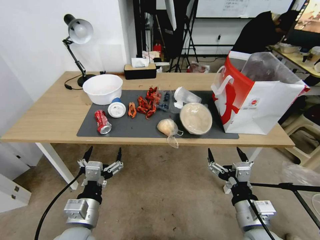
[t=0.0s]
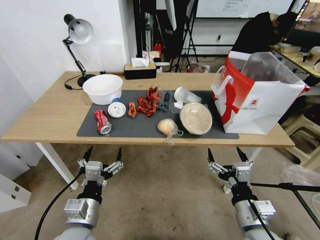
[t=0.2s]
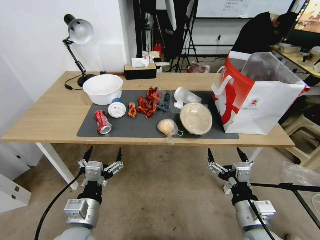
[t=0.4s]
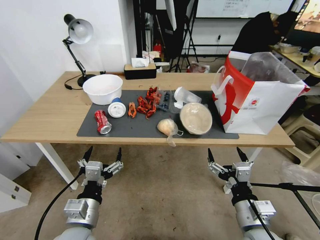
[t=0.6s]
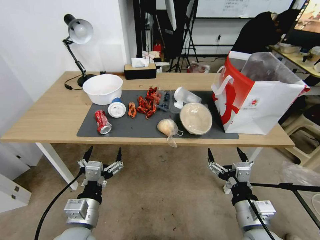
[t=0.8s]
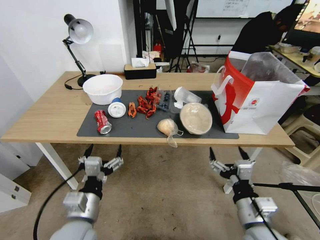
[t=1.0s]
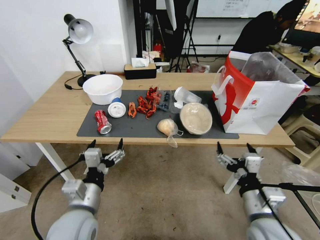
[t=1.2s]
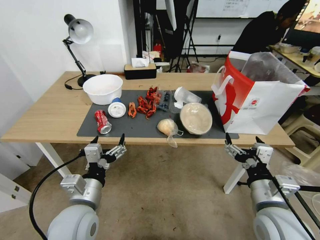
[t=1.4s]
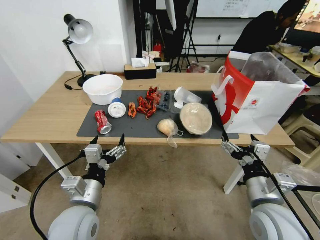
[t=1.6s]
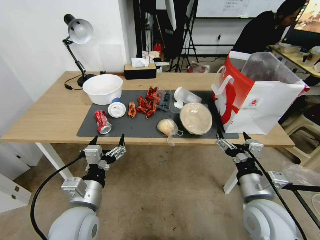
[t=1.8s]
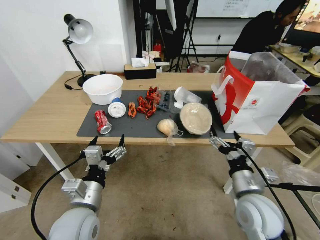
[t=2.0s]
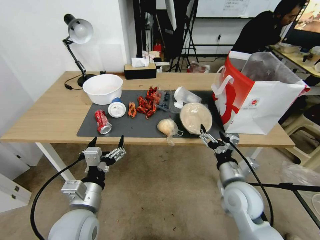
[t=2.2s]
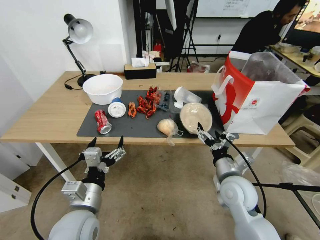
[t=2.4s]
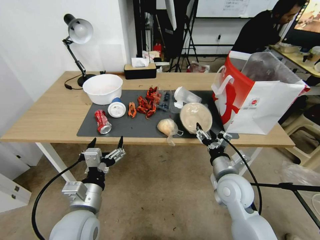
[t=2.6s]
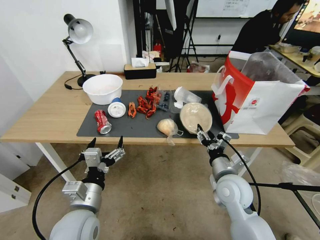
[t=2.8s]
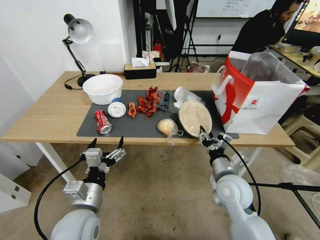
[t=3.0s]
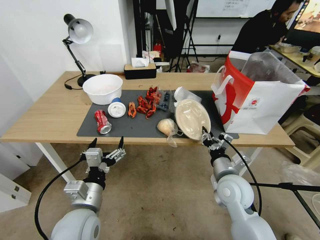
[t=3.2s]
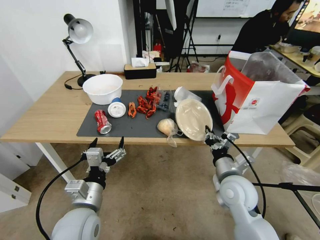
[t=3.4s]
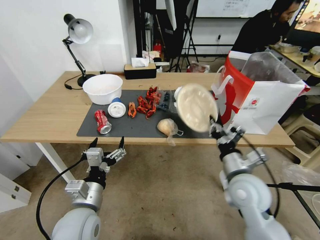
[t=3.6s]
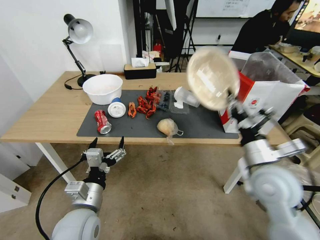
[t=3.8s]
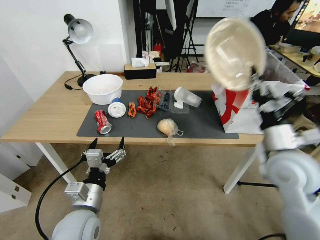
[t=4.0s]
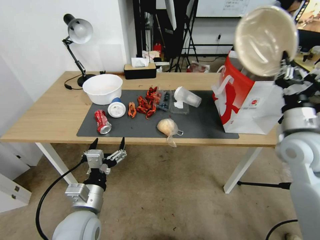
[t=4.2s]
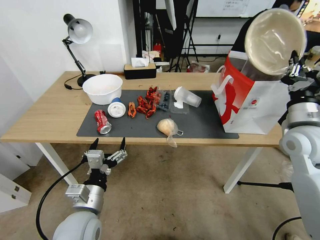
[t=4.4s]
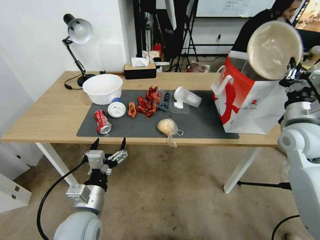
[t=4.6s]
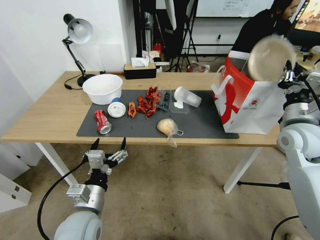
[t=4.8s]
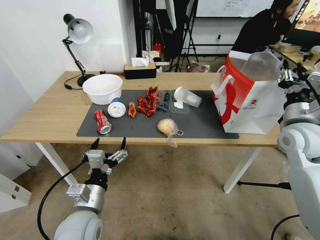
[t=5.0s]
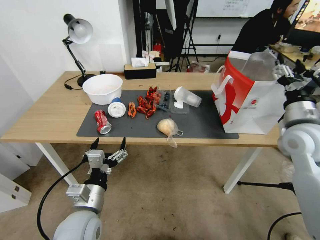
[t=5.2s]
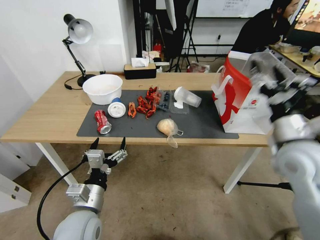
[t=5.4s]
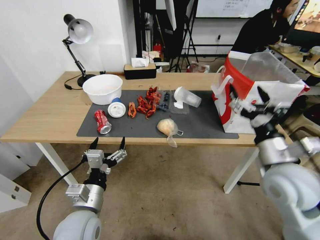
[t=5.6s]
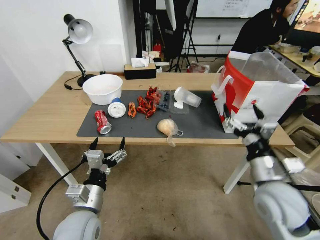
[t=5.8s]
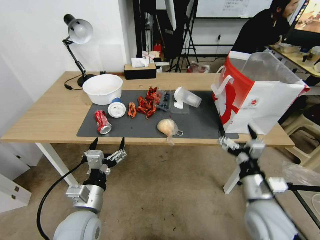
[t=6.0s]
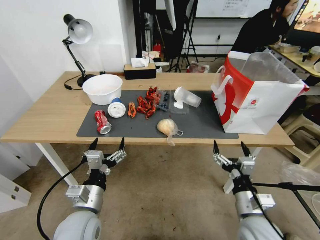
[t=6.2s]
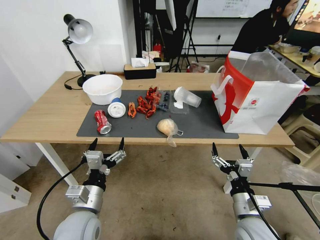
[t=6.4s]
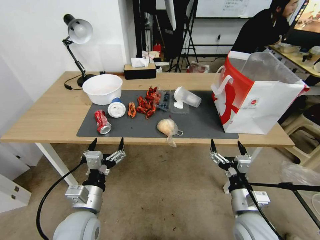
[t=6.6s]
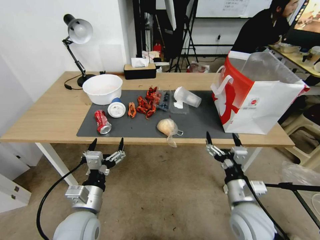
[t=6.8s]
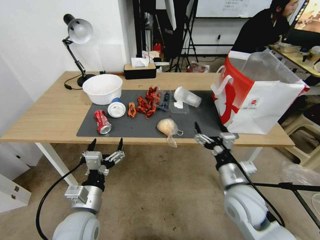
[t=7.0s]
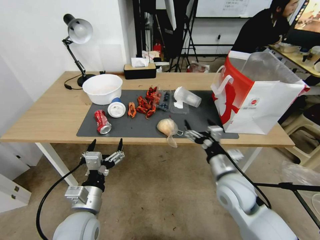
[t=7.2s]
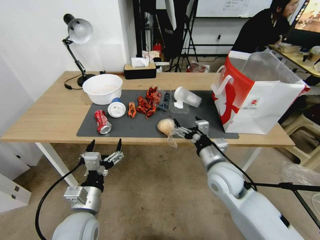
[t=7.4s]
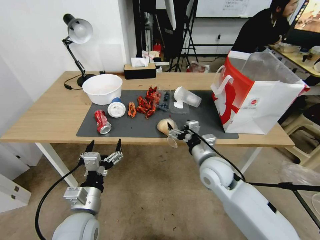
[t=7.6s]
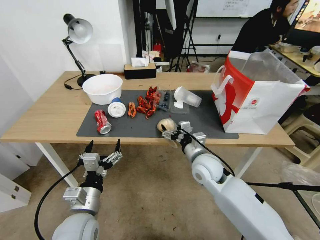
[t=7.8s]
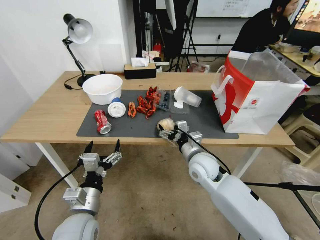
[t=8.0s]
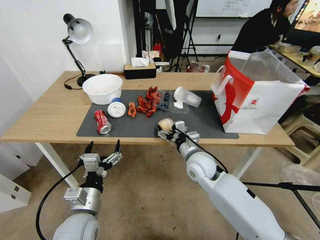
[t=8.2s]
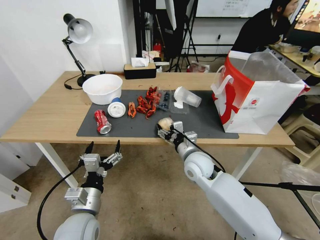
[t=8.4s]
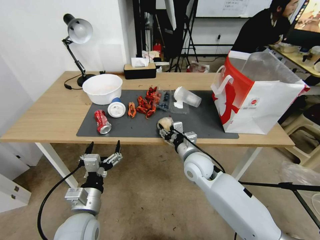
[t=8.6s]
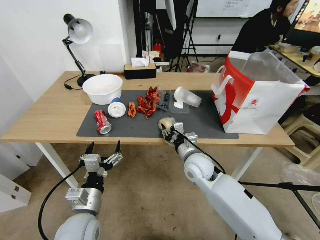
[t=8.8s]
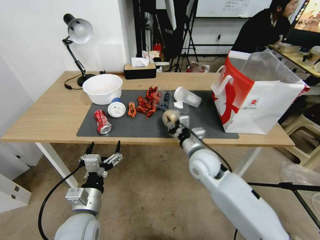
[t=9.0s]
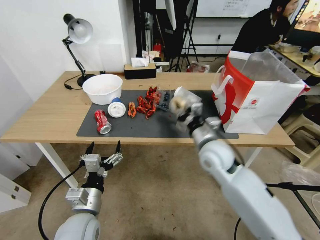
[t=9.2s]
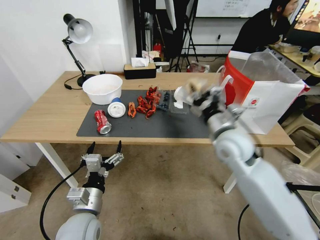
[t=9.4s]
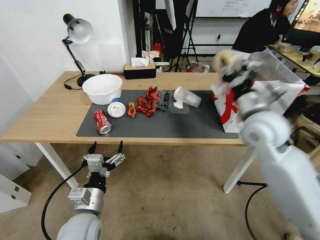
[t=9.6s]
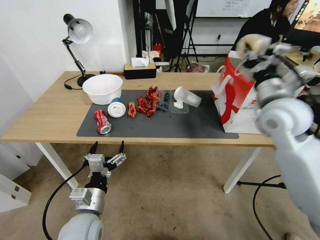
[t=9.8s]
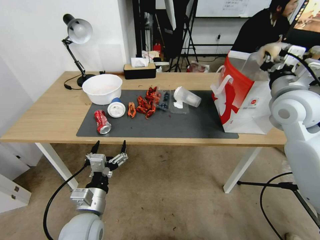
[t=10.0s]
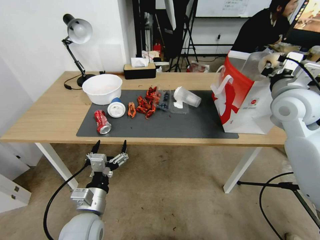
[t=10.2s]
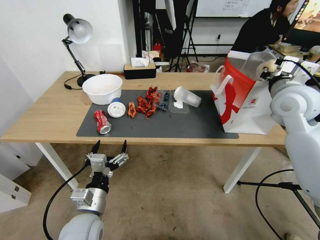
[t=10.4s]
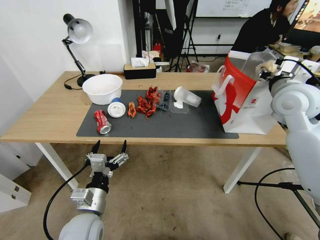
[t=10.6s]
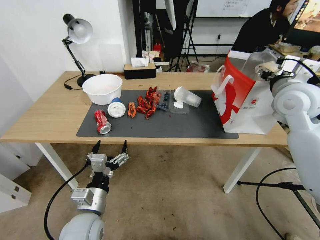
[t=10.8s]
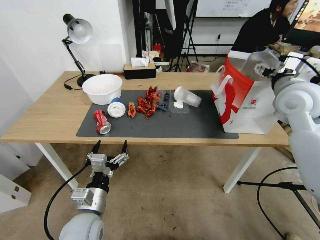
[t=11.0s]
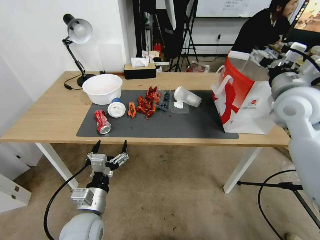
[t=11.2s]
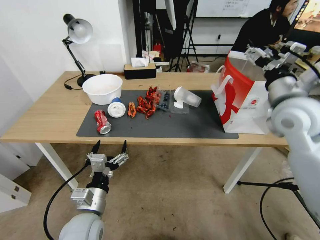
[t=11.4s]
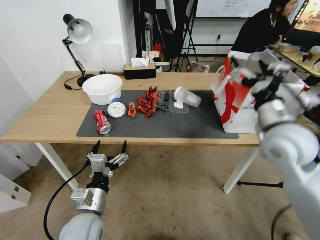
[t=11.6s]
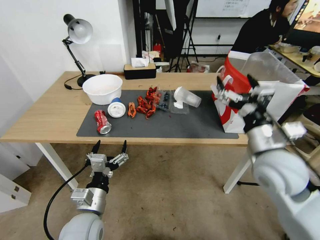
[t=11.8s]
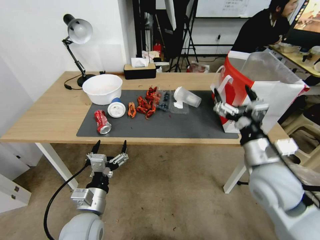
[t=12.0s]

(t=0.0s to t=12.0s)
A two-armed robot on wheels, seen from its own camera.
t=1.6s - t=3.0s: The right gripper travels forward and downward by roughly 10 cm, and closes its fingers.
t=3.0s - t=4.4s: The right gripper moves upward and to the right, some 20 cm, and closes up.
t=4.4s - t=6.0s: The right gripper shifts about 25 cm downward, backward and to the left, and opens up.
t=6.0s - t=7.6s: The right gripper is displaced forward and to the left by approximately 15 cm.
t=7.6s - t=9.0s: The right gripper closes.
t=9.0s - t=10.4s: The right gripper heads upward and to the right, covering approximately 30 cm.
t=10.4s - t=12.0s: The right gripper goes about 25 cm backward, downward and to the left, and opens.

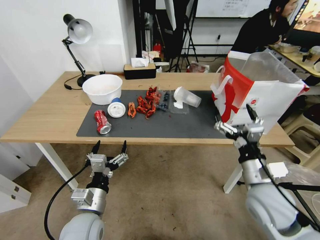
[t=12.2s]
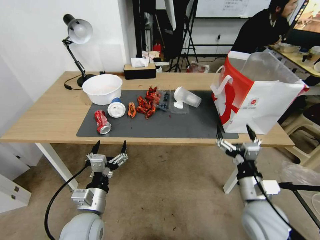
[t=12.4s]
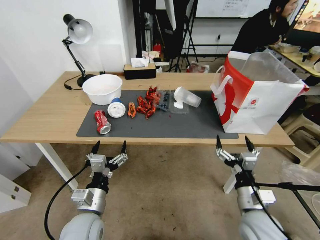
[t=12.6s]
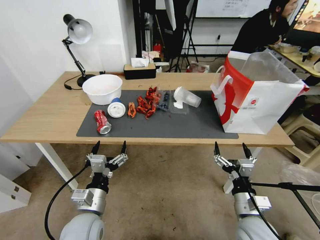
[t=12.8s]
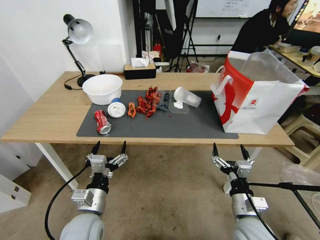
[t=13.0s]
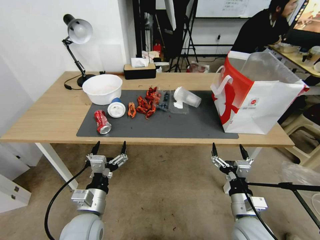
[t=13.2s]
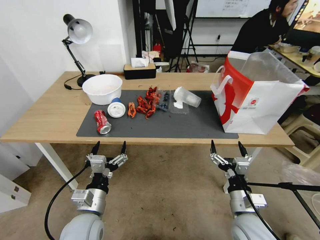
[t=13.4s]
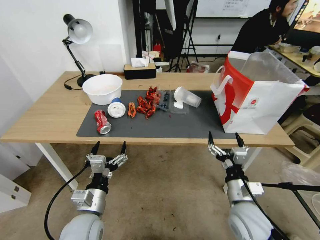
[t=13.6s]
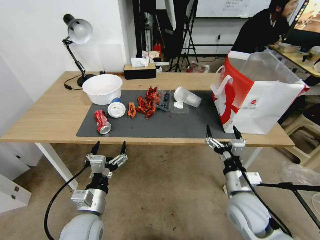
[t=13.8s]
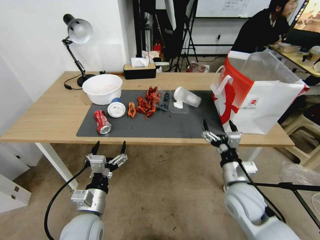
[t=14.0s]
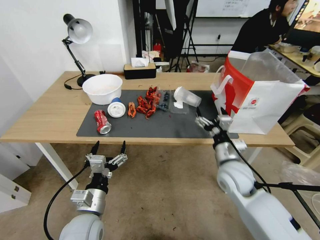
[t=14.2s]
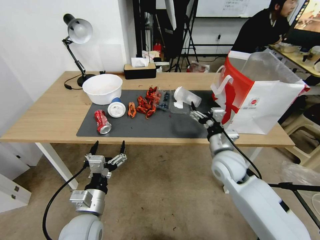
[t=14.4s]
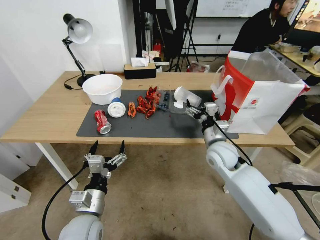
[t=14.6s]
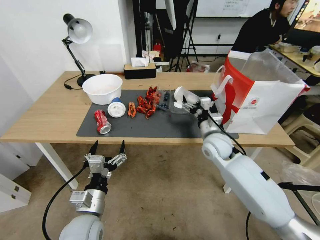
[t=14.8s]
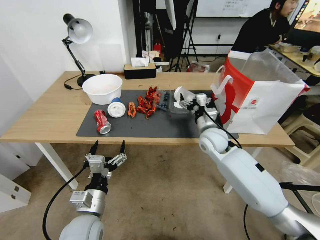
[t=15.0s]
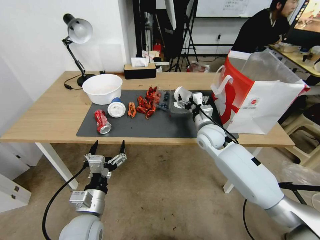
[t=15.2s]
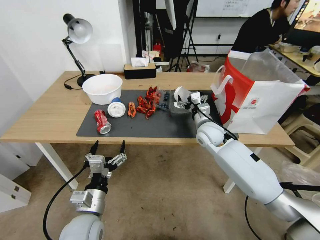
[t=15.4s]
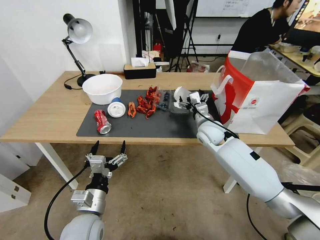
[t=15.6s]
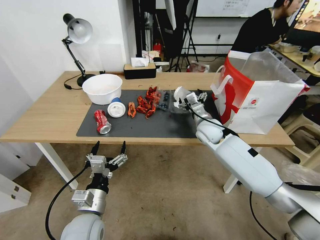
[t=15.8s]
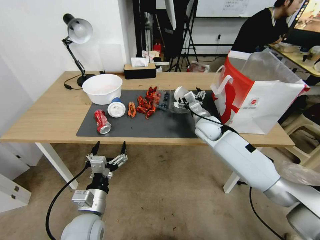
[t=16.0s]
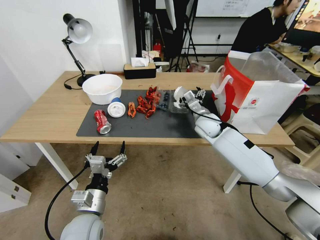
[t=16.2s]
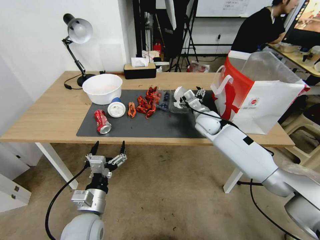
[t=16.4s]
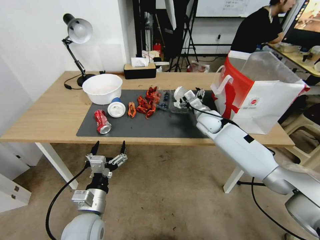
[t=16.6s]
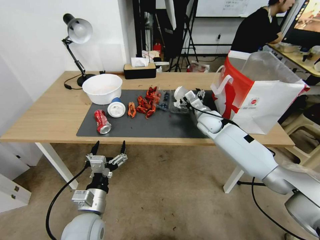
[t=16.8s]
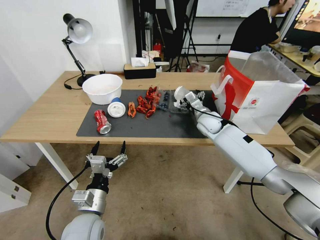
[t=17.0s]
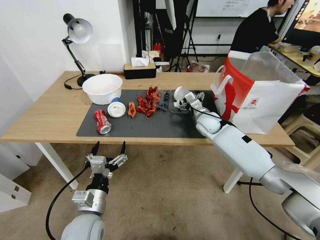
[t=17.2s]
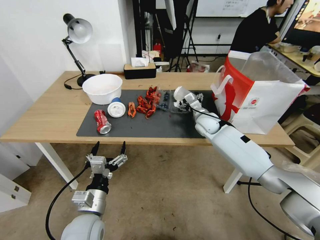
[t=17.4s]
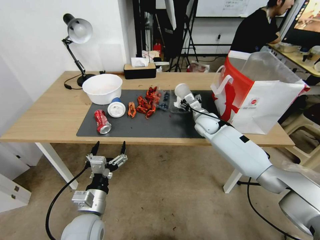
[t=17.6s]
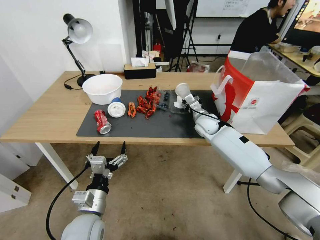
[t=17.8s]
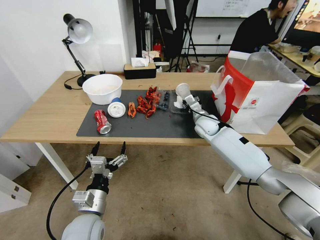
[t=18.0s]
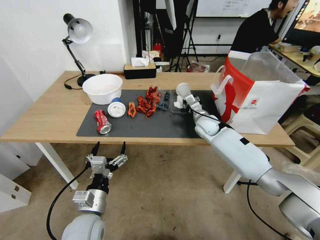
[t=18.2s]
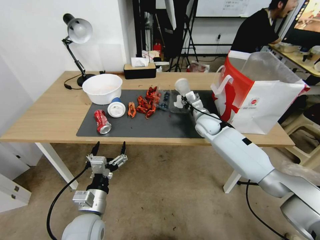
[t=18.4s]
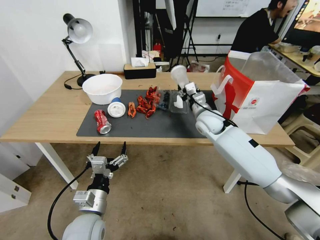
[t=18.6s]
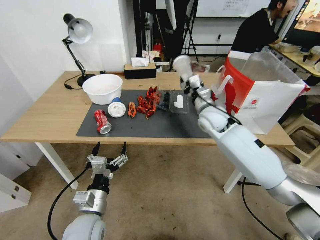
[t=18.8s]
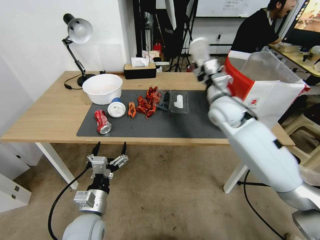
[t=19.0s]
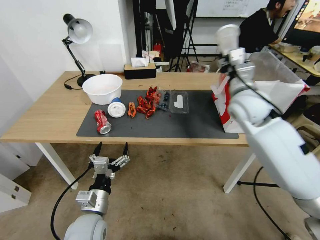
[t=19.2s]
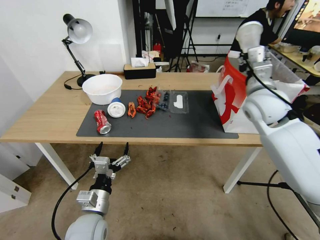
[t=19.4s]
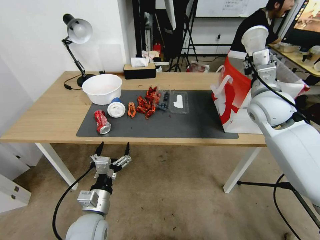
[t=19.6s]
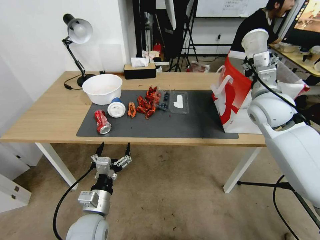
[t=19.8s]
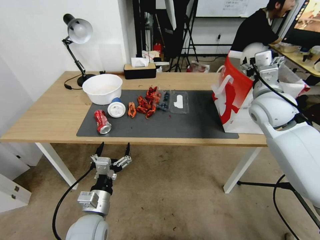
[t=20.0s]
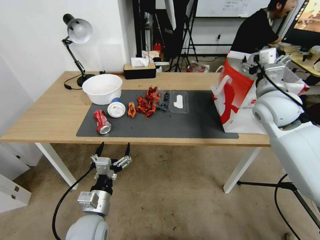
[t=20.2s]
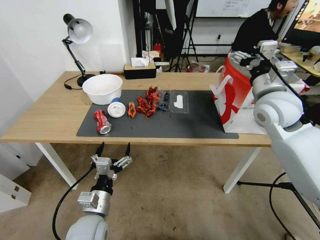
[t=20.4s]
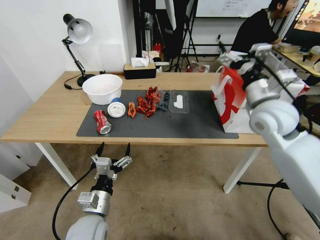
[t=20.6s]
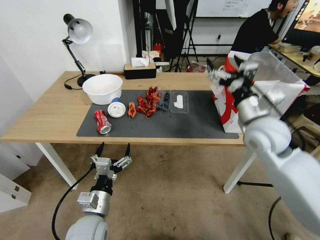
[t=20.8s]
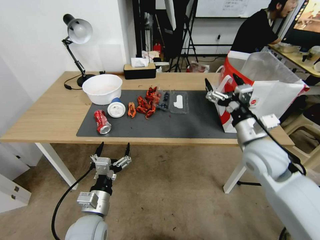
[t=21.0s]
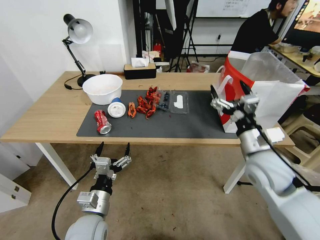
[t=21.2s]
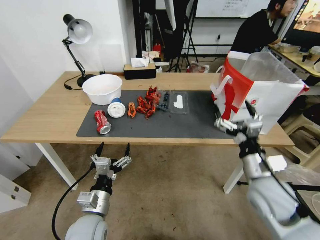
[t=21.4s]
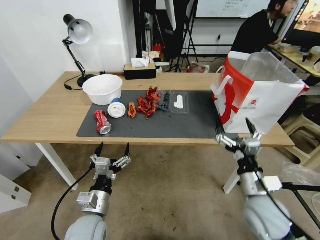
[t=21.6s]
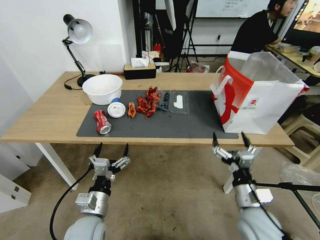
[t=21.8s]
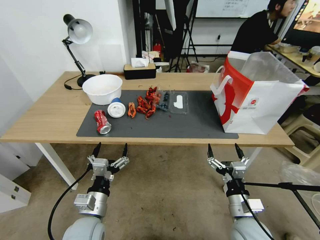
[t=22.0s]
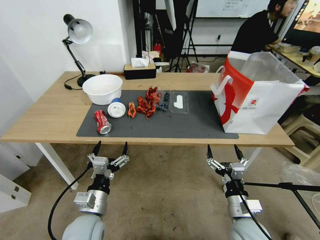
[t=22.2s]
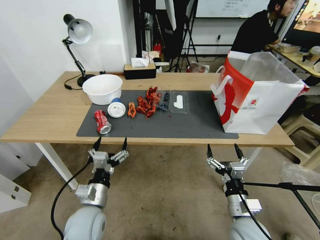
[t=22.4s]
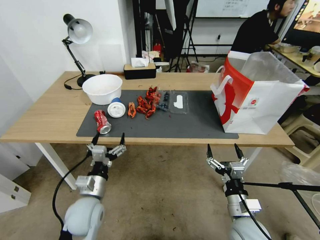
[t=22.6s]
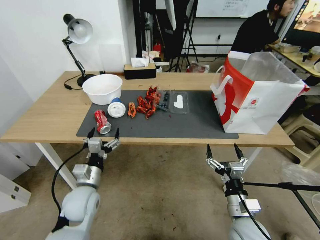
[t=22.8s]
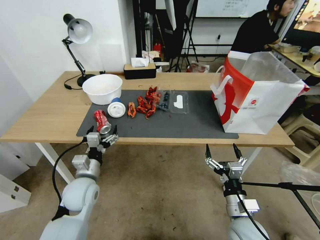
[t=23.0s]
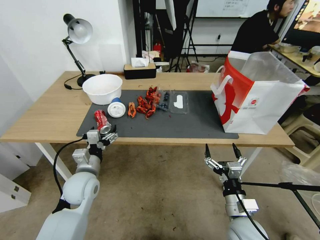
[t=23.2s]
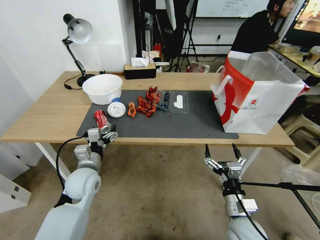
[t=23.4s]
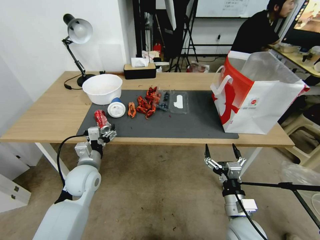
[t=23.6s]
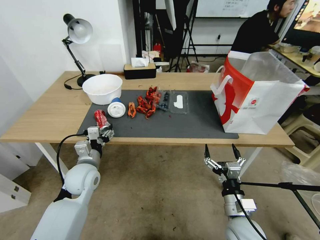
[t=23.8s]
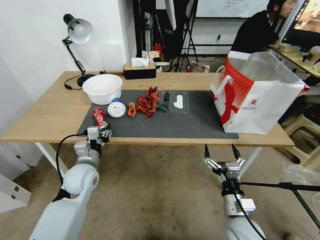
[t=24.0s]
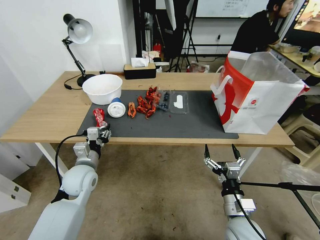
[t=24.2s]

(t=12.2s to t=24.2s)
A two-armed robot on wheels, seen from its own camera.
t=12.2s - t=13.8s: The right gripper is displaced downward by some 10 cm.
t=13.8s - t=15.2s: The right gripper heads forward, covering roughly 25 cm.
t=15.2s - t=16.6s: The right gripper moves forward, approximately 5 cm.
t=16.6s - t=18.2s: The right gripper closes its fingers.
t=18.2s - t=19.8s: The right gripper heads upward, backward and to the right, covering approximately 25 cm.
t=19.8s - t=21.2s: The right gripper is displaced backward and downward by roughly 15 cm, and opens up.
t=21.2s - t=22.6s: The right gripper heads downward and backward, covering roughly 20 cm; the left gripper goes approximately 5 cm forward.
t=22.6s - t=24.2s: The left gripper travels forward by some 10 cm, and closes up.
